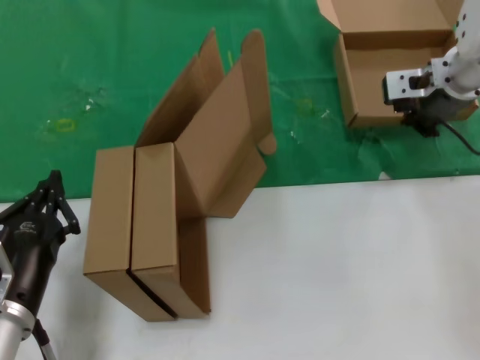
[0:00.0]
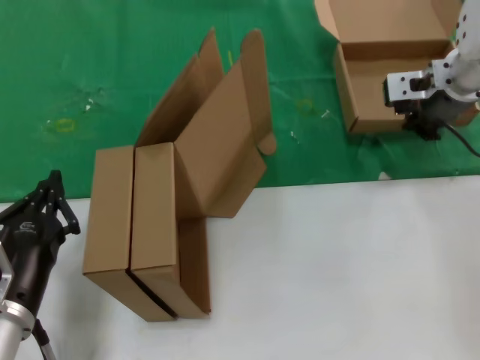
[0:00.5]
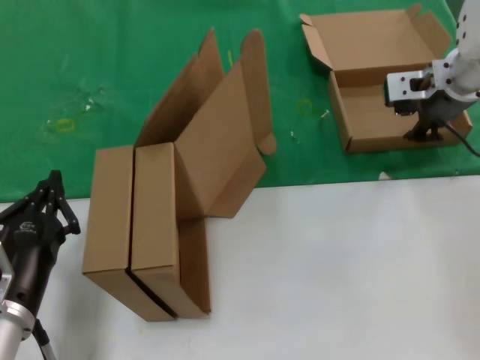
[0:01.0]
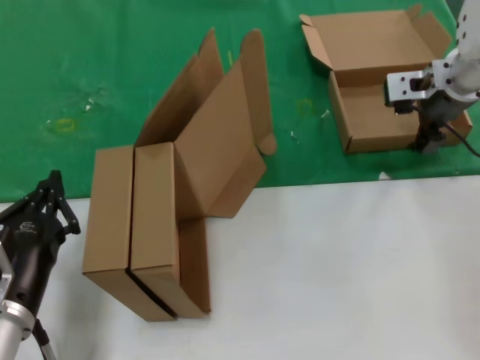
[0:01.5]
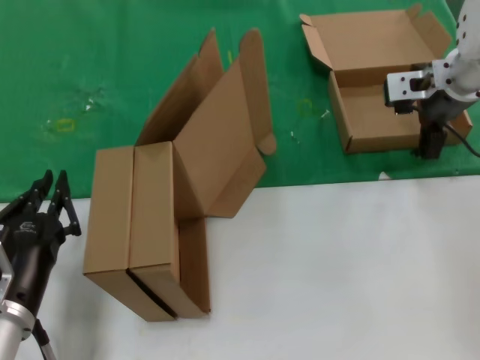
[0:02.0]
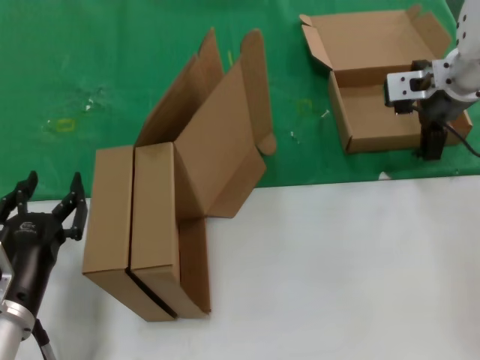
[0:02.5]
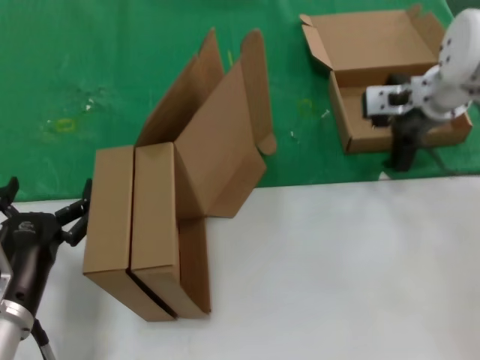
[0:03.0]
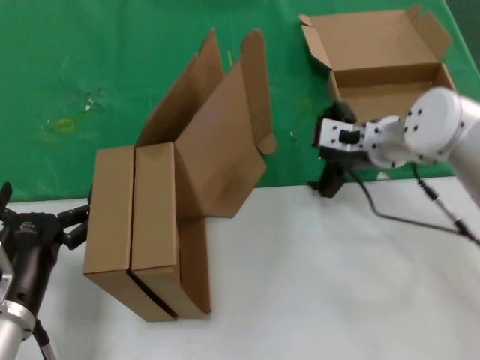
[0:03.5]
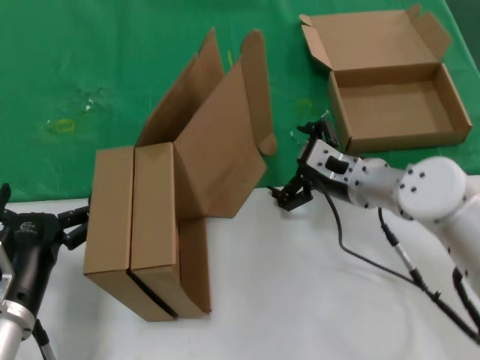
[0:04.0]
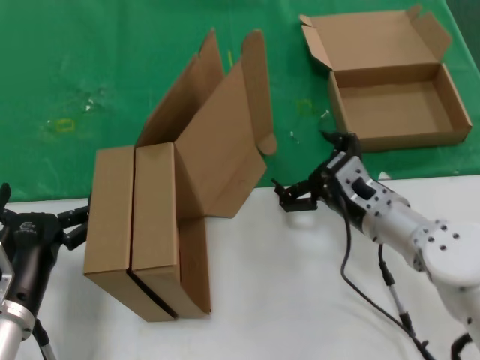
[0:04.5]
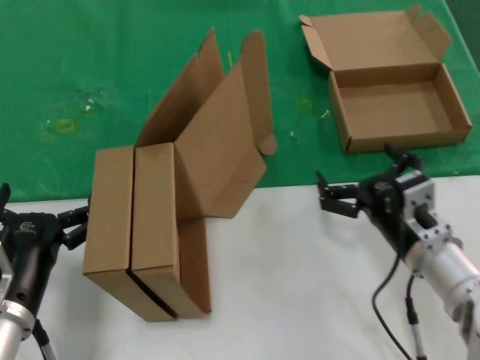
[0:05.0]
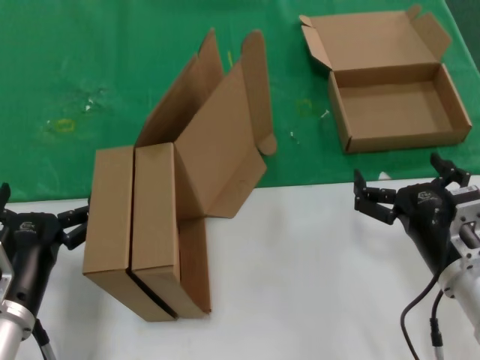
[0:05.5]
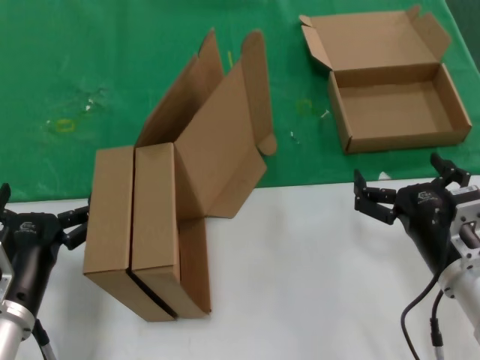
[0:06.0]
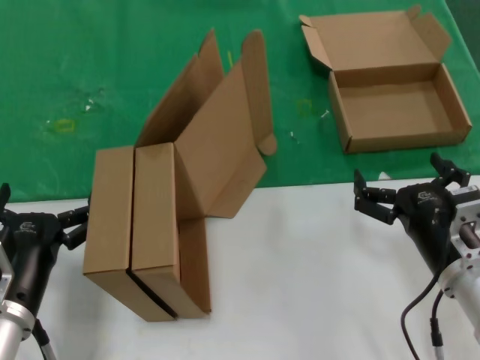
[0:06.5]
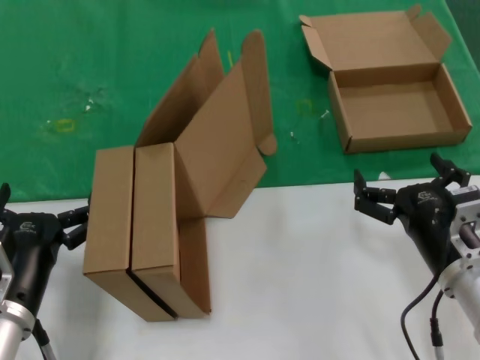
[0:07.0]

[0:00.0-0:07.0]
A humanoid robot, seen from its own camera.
Task of the whole recording: pick up the paper box and put it at the back.
0:00.0 to 0:02.0: Both hands stay about where they are.
0:02.0 to 0:03.5: The right hand moves downward and to the left, roughly 15 cm.
0:03.5 to 0:05.0: The right hand heads backward and downward, covering about 20 cm.
0:05.0 to 0:07.0: The right hand shifts by approximately 5 cm.
